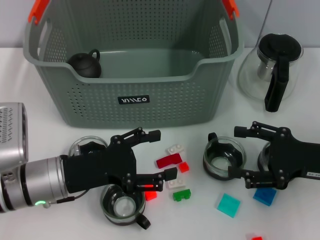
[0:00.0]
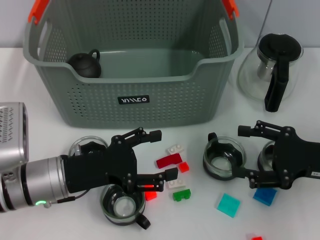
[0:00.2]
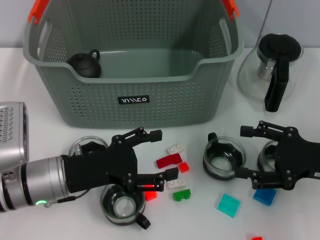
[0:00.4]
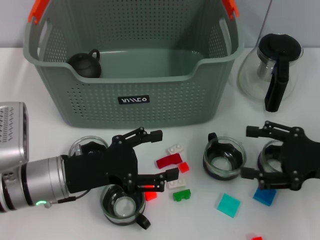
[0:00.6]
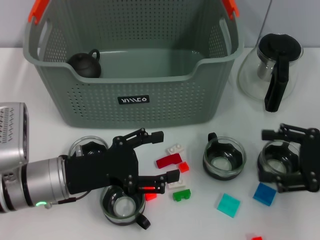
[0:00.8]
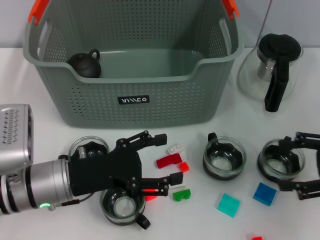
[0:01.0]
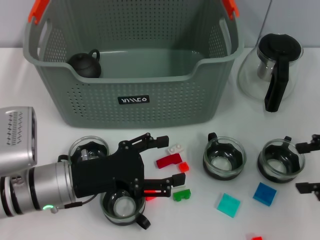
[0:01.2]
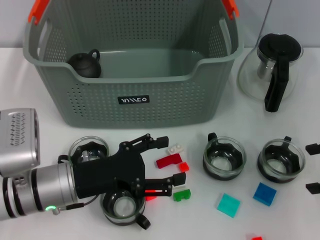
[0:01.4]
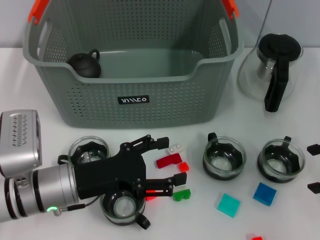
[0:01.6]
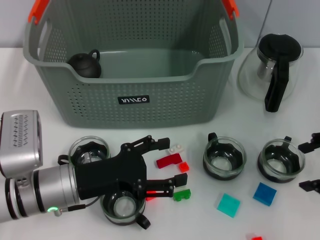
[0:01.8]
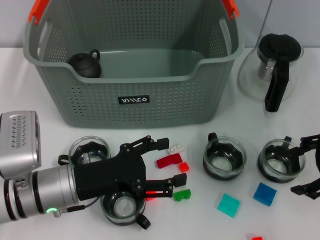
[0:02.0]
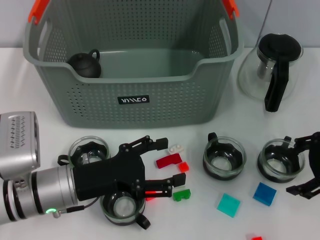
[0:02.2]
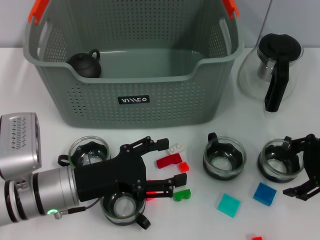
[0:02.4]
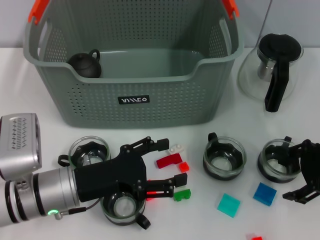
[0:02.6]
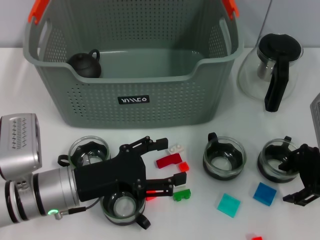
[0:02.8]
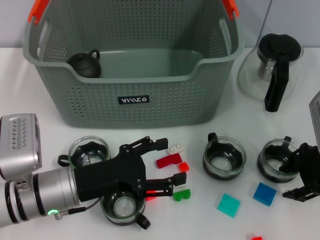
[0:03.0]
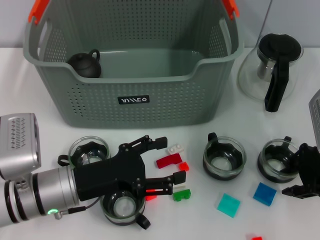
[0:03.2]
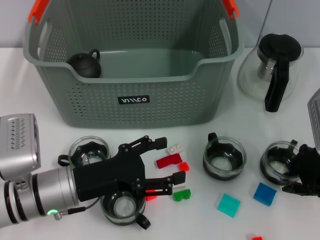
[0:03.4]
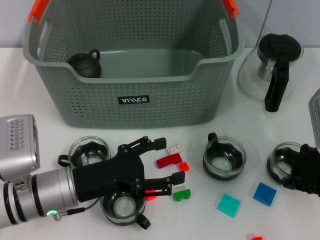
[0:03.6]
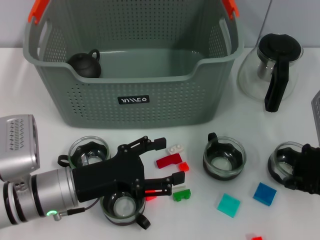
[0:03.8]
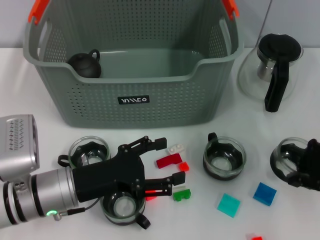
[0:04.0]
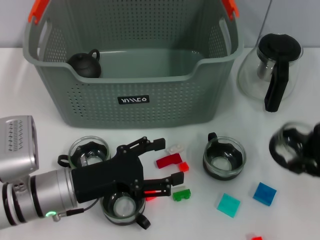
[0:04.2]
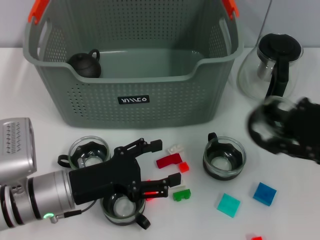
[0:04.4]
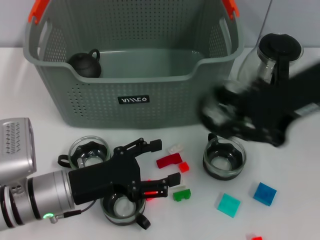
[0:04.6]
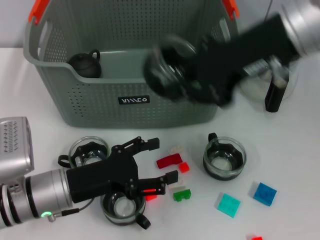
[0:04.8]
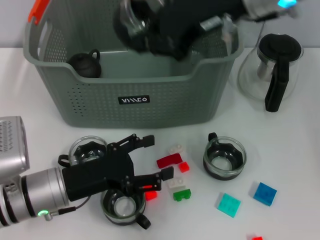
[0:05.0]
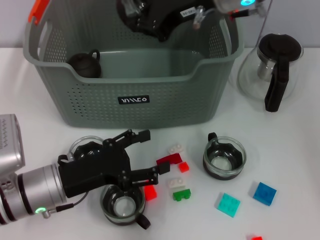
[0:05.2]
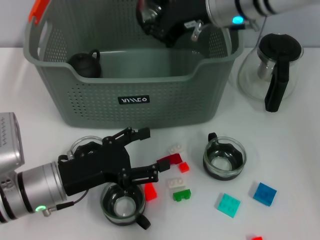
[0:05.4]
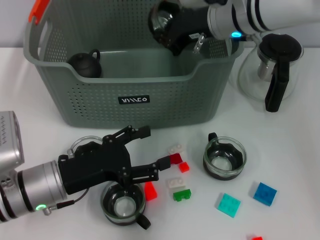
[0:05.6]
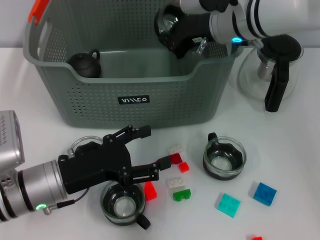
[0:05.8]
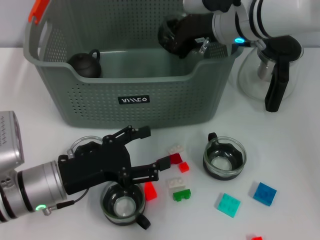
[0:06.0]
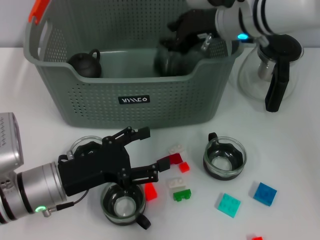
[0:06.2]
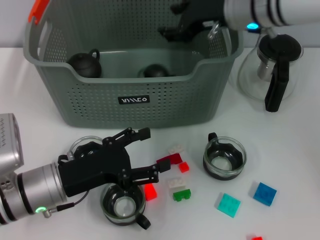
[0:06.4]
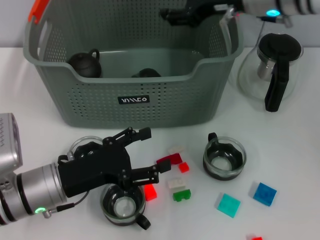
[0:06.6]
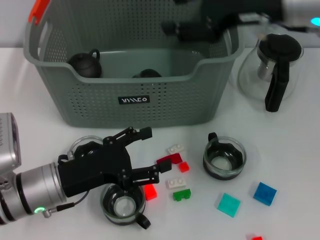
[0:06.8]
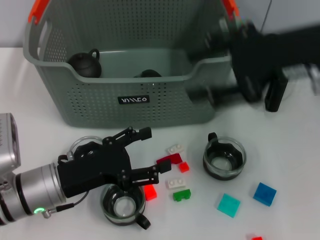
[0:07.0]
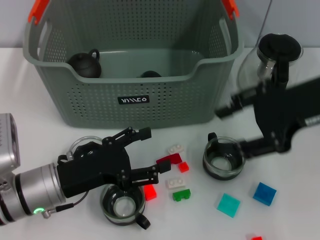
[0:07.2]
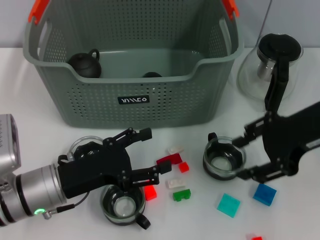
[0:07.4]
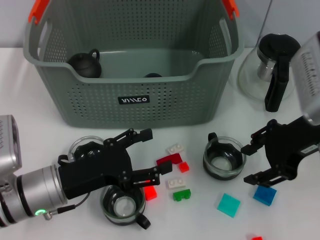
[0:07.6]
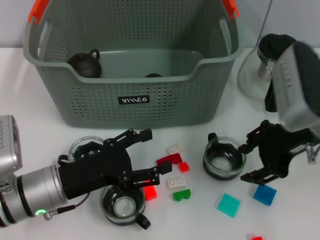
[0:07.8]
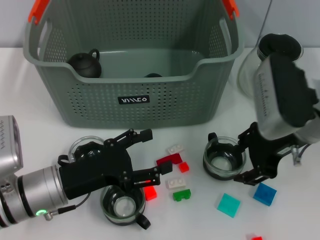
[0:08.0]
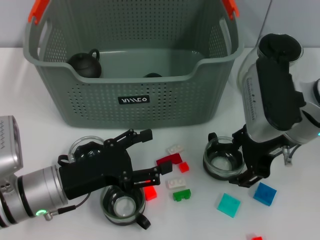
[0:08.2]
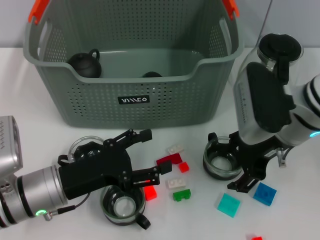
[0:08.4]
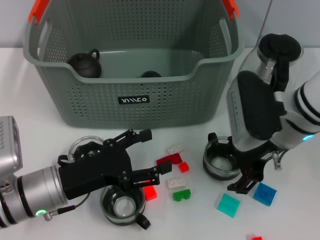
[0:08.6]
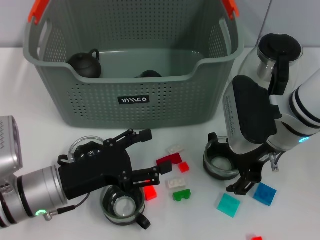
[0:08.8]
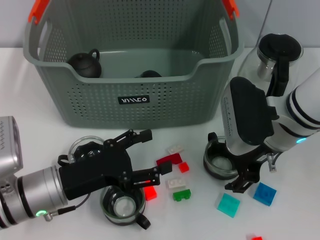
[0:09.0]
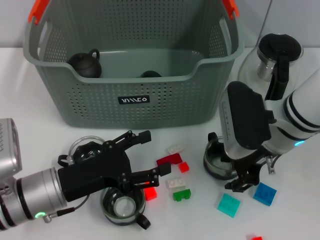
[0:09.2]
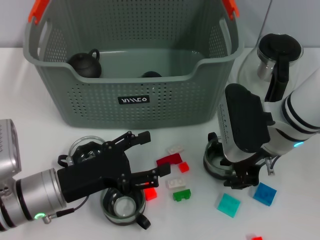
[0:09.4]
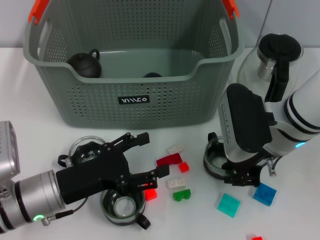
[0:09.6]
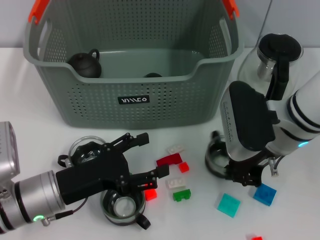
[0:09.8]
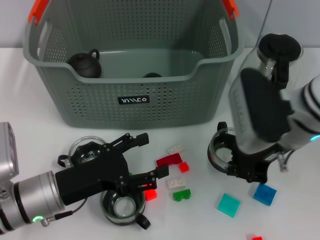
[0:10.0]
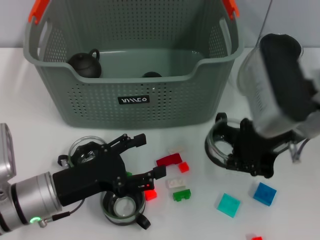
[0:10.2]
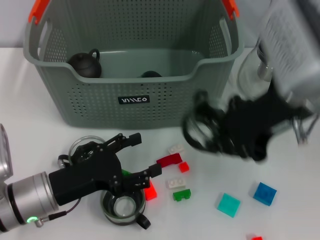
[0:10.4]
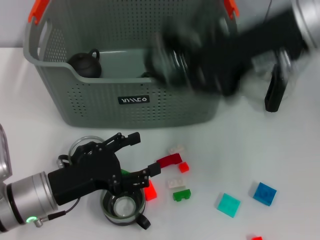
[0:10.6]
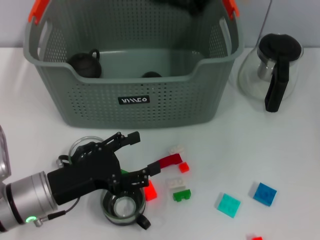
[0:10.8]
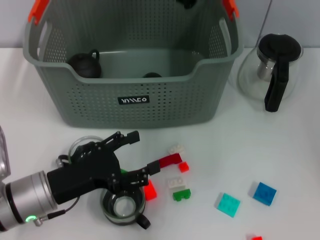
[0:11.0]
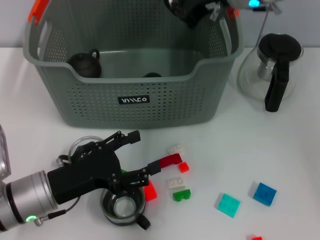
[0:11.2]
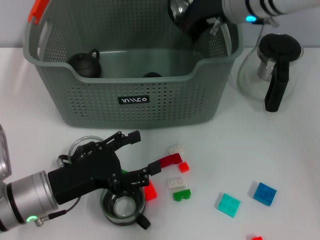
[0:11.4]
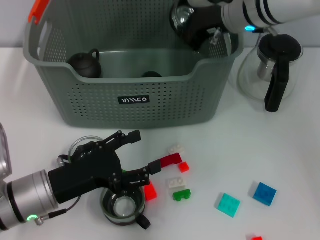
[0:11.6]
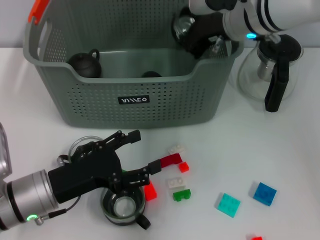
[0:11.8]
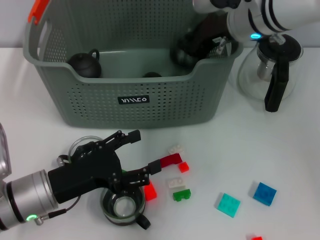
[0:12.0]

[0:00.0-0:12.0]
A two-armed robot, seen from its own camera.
Task of the whole recording: pick up the teacup on the table and place it into the storage bin, pick up the block on the table and place it into the storage bin.
Step, 0.0 to 3.4 s: Grasp the cup with right gripper.
Step, 3.8 to 6.2 s: Place the cup in the storage box with right gripper.
Step, 6.4 to 9.8 s: Grasp the cup with right gripper.
0.0 to 1.6 s: The right gripper shifts roughly 10 cm upward and to the right.
1.6 to 3.0 s: The right gripper goes about 5 cm to the left.
3.0 to 4.4 s: The right gripper moves upward, some 10 cm, and closes its fingers.
4.4 to 6.0 s: The right gripper heads forward and to the left, covering some 20 cm.
6.0 to 7.6 s: The right gripper heads backward and to the right, covering roughly 15 cm, and opens its fingers.
7.6 to 9.0 s: The right gripper is displaced downward and to the left by about 10 cm.
9.0 to 10.4 s: The right gripper travels upward by roughly 15 cm, and closes up.
10.4 to 12.0 s: The right gripper goes approximately 15 cm forward and downward.

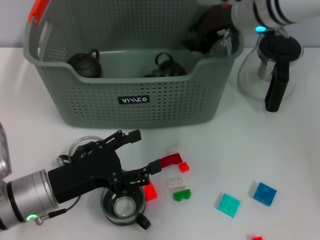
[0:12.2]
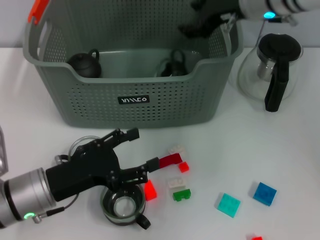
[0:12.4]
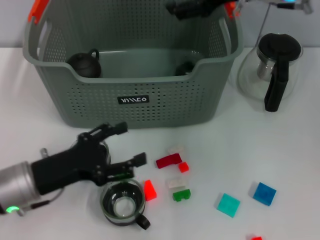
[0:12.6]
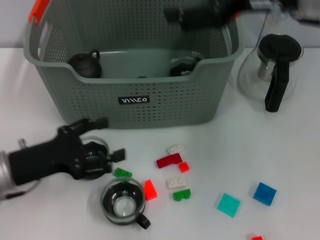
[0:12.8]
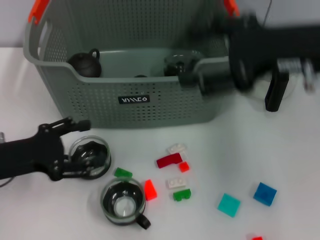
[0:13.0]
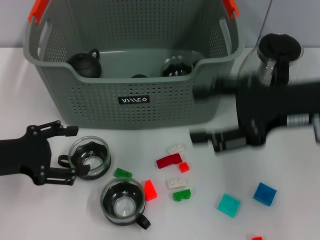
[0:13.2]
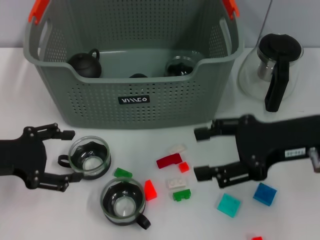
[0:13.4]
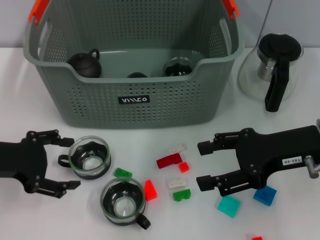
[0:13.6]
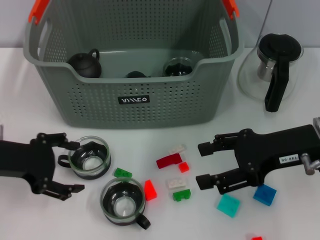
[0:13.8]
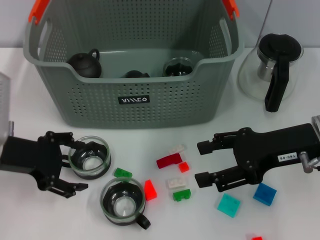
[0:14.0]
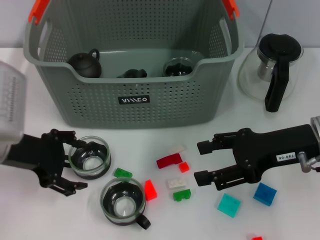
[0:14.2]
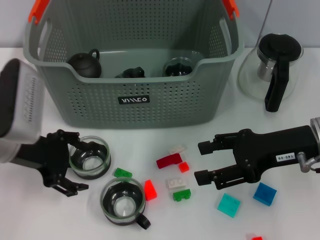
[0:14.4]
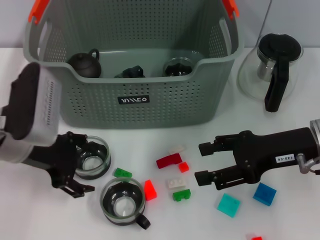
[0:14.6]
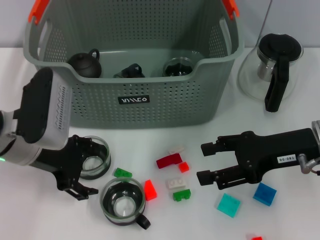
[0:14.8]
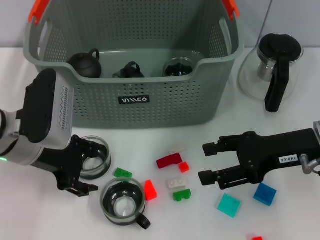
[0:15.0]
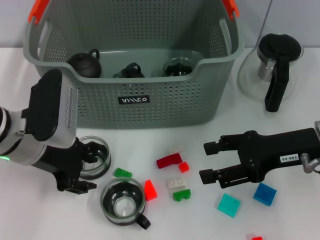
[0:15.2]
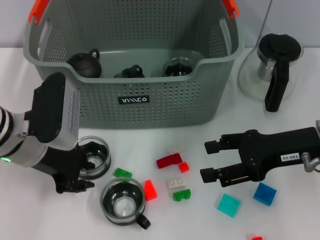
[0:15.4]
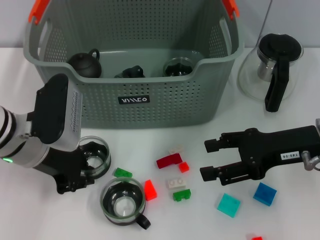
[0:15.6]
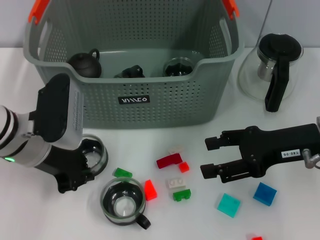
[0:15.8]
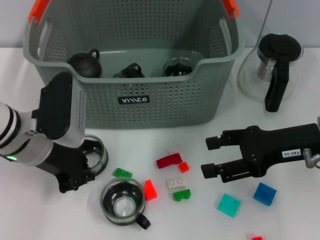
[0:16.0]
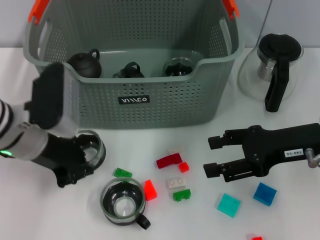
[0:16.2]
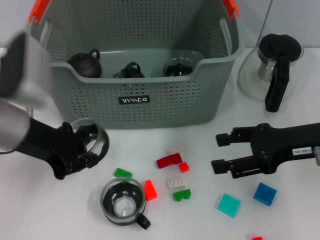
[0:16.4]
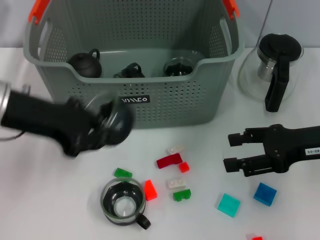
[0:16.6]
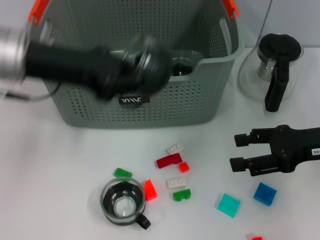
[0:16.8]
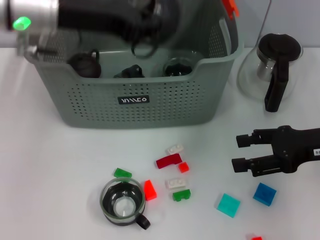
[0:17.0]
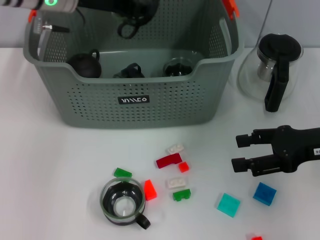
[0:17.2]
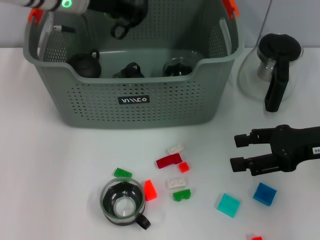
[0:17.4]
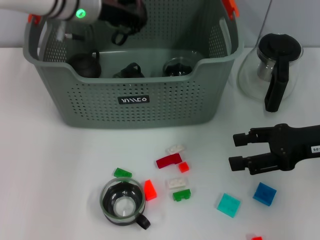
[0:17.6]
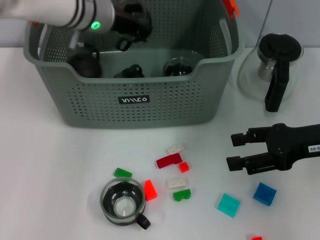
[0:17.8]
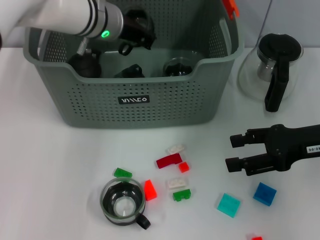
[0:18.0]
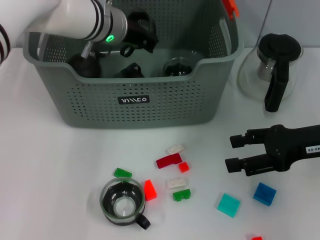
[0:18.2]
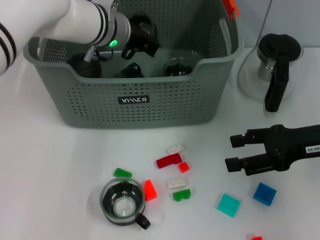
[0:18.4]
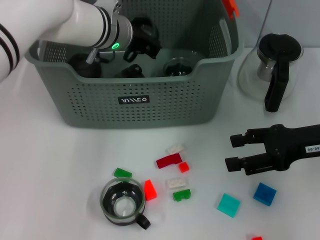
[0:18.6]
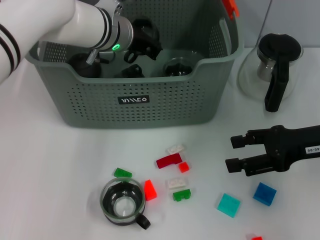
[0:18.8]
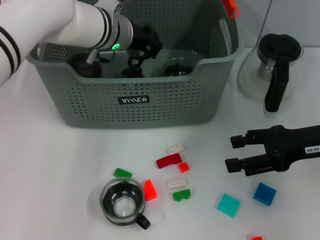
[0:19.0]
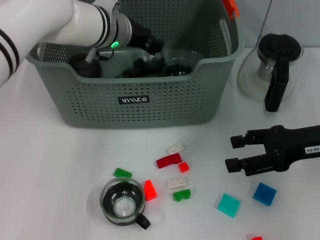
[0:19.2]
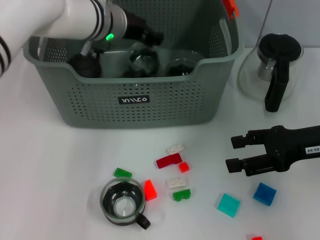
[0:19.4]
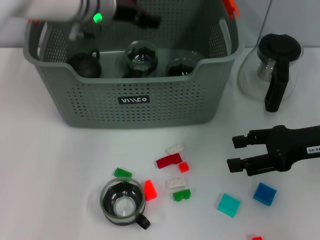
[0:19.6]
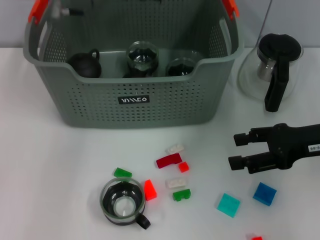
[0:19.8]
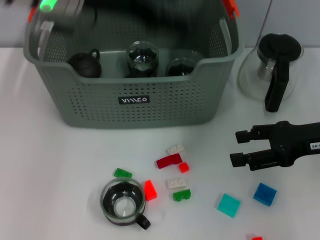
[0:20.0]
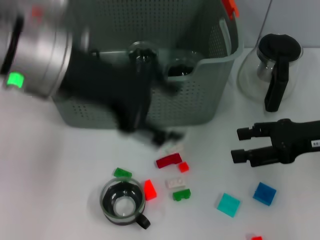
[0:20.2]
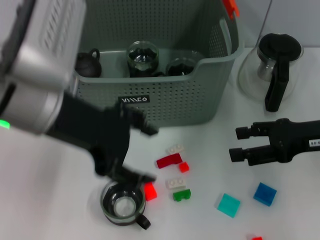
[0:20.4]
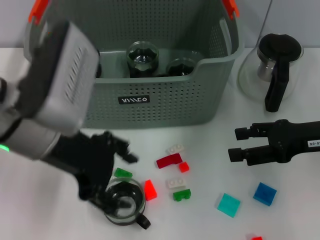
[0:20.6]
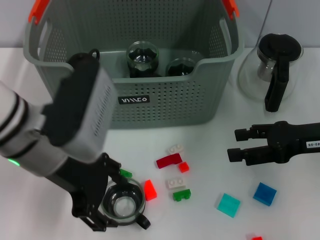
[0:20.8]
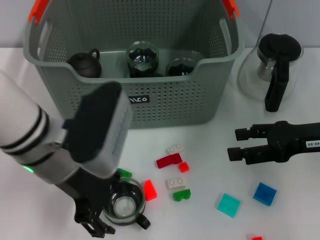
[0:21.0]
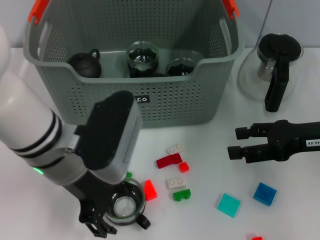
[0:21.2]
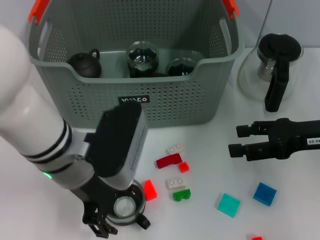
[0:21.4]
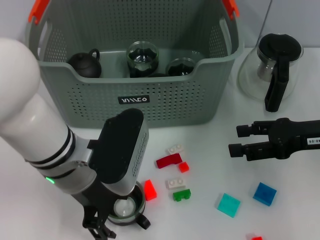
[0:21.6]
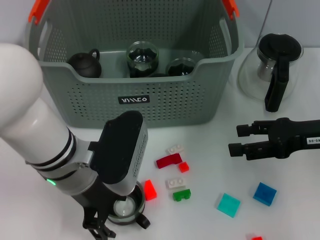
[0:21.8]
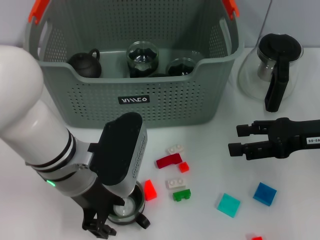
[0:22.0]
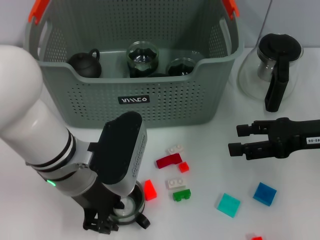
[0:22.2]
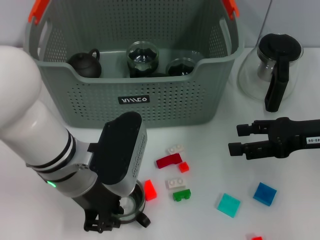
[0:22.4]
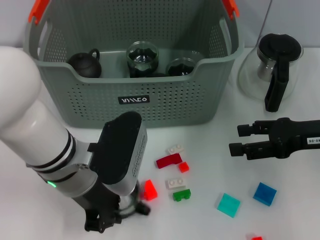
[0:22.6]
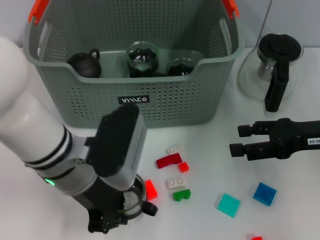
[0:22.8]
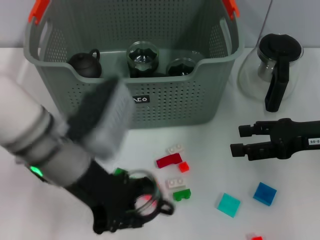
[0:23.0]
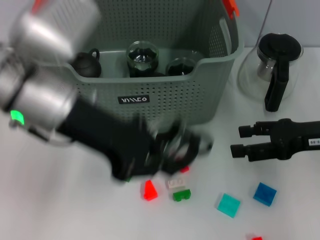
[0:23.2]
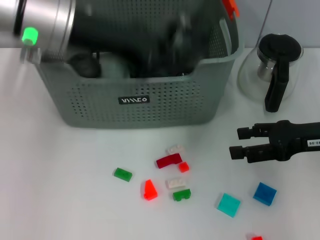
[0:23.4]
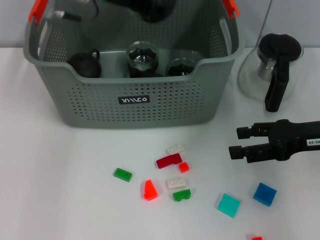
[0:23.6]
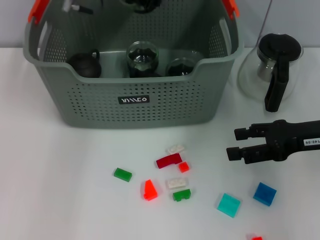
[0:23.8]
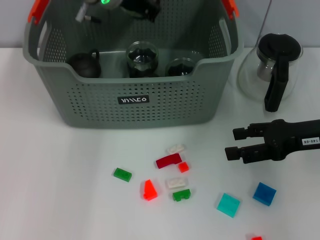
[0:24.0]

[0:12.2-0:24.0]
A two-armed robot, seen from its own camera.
Task of the whole recording: pick up the teacup on the table and place it into the storage bin, pick up the block on the table and place it into the storage bin.
Step, 12.4 to 15.6 s: Grasp the cup with left gripper.
Step, 15.8 to 19.6 s: Place the cup in the storage box with left gripper.
Step, 19.8 to 22.6 s: Grasp the cup with left gripper.
12.2 to 13.6 s: The left gripper moves upward and to the left, about 15 cm. Meanwhile the right gripper is displaced backward and to the right by about 20 cm, and opens up.
13.6 to 15.2 s: The left gripper is displaced to the right by approximately 10 cm.
15.2 to 16.6 s: The left gripper moves upward, approximately 10 cm, and closes its fingers.
16.6 to 18.2 s: The left gripper travels forward and to the right by about 20 cm.
18.2 to 19.6 s: The left gripper opens.
19.6 to 21.0 s: The left gripper heads backward, covering some 20 cm.
21.0 to 22.6 s: The left gripper ends up approximately 5 cm from where it was, and closes.
22.6 to 24.0 s: The left gripper travels forward and upward by roughly 25 cm.
